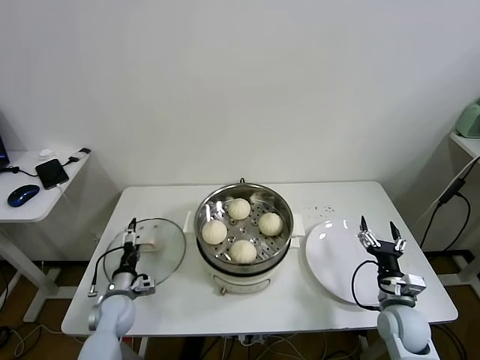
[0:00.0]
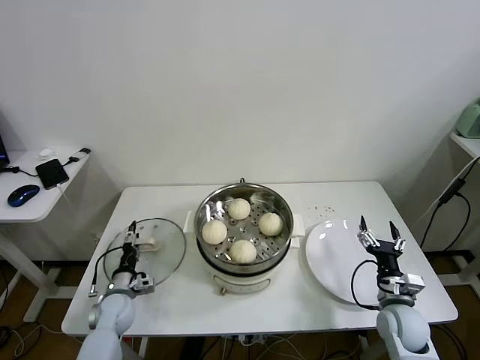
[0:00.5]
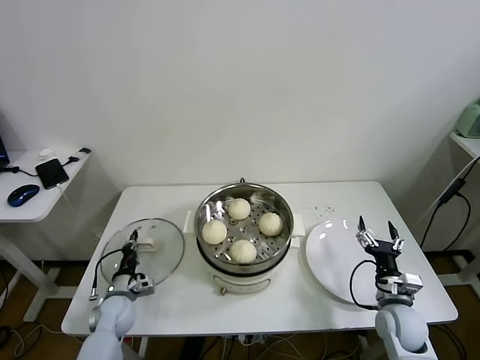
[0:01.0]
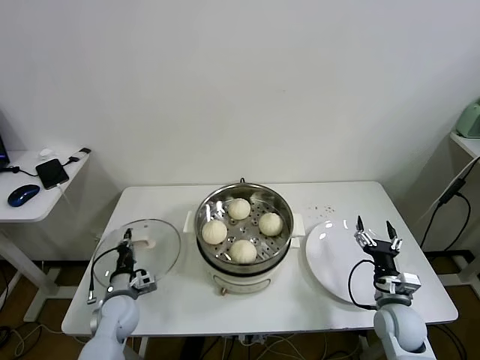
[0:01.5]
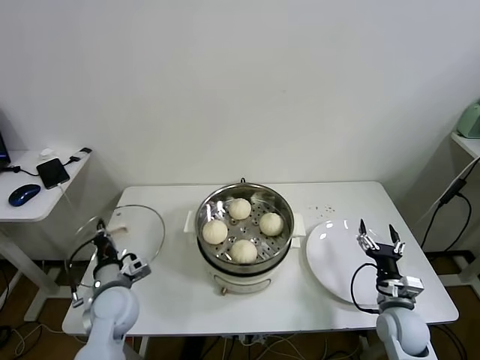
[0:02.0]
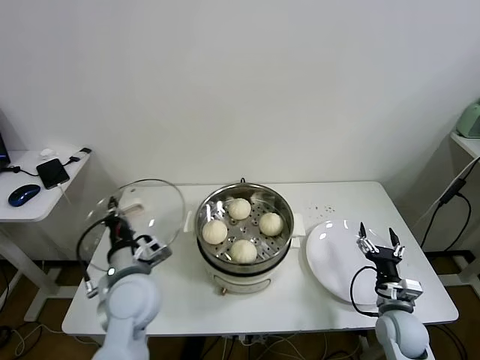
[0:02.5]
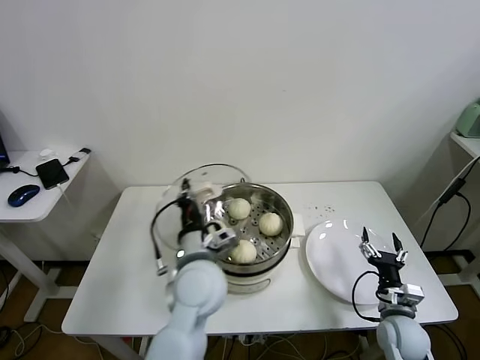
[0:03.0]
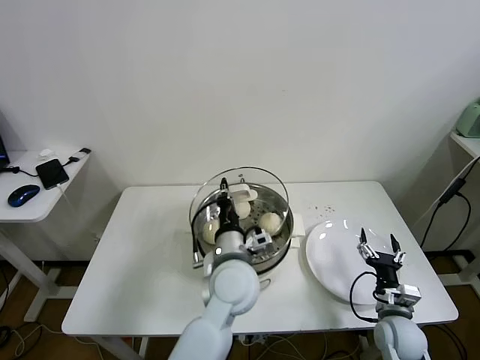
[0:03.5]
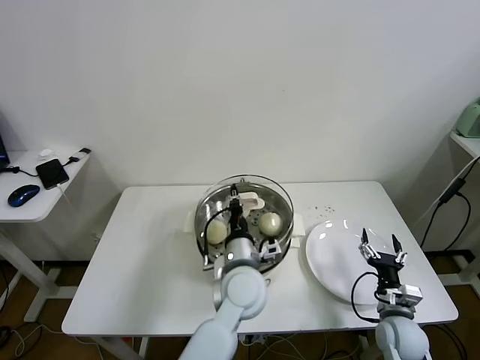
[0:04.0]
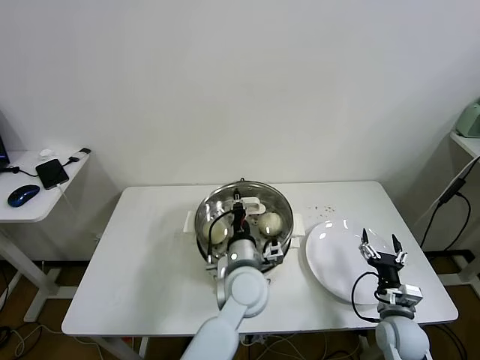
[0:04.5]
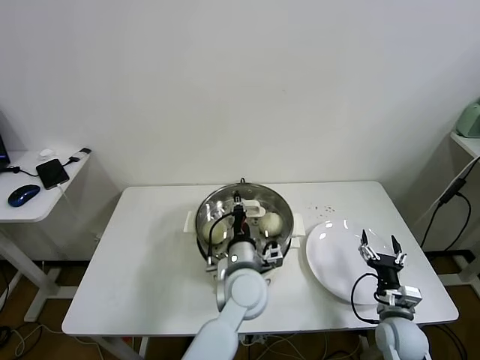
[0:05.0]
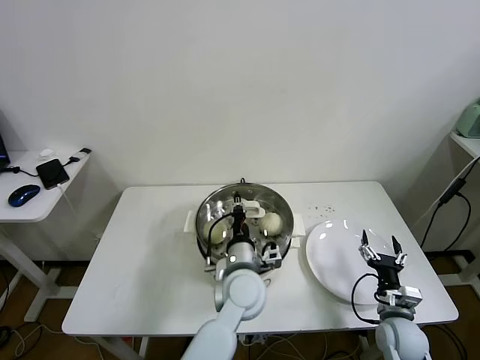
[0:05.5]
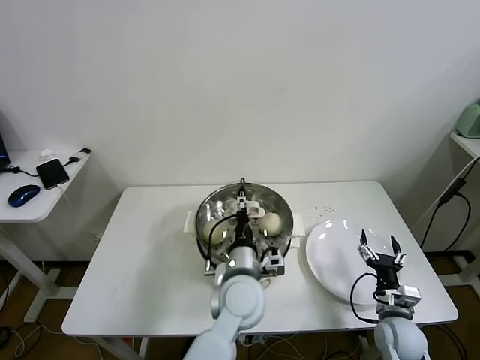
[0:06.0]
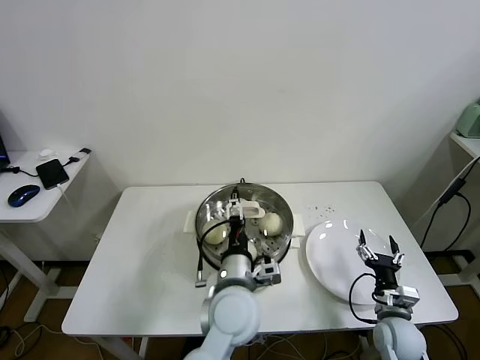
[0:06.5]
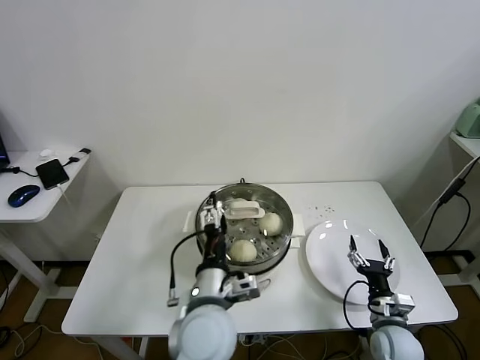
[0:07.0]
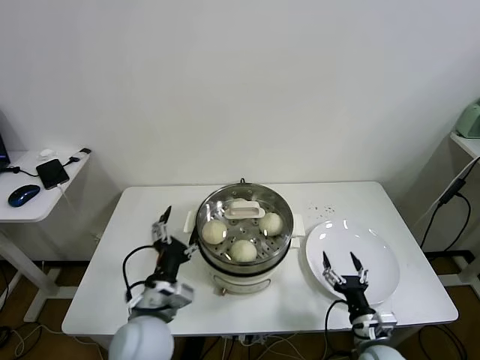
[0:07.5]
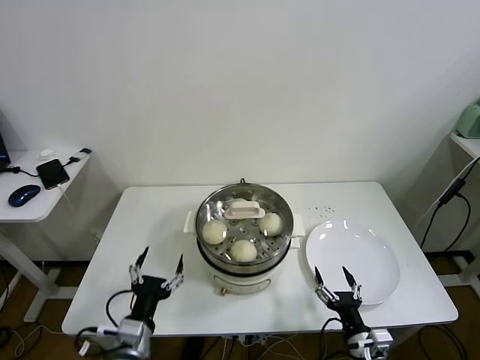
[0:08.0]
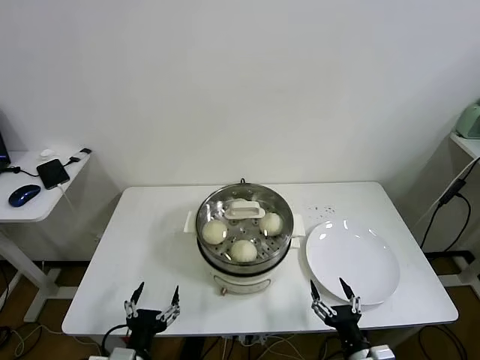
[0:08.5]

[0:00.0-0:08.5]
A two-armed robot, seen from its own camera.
Task of the whole recording: take steamed baozi put them in steamer.
Step, 0:01.5 to 0:05.5: Place the pot lid on the steamer with left gripper.
0:00.0 to 0:02.0: The left gripper moves upward, about 10 cm, and closes up.
0:02.0 to 0:04.0: The left gripper travels to the right by roughly 30 cm.
0:04.0 to 0:06.5: The left gripper opens up.
0:06.5 to 0:08.5: The left gripper shifts about 30 cm to the left, backward and downward. The right gripper goes approximately 15 cm backward and to the left.
